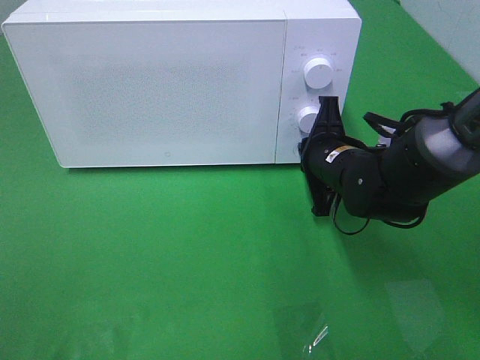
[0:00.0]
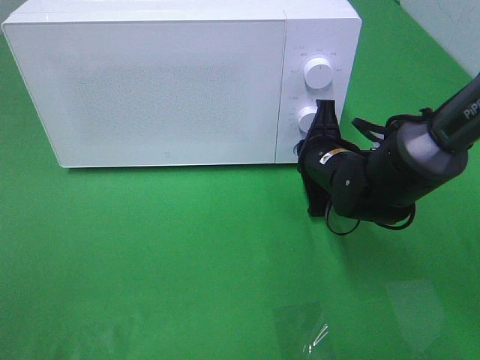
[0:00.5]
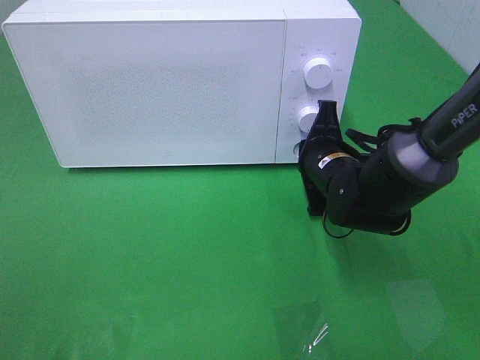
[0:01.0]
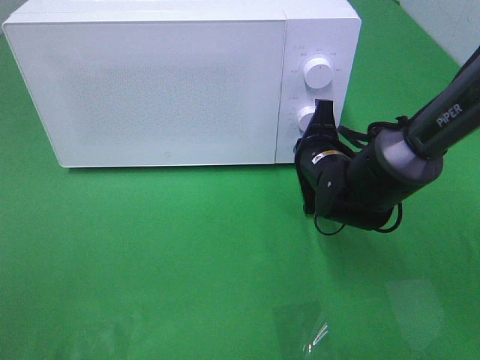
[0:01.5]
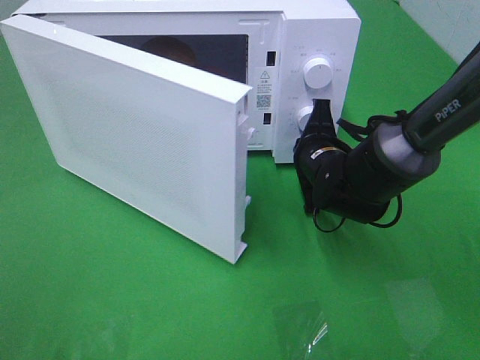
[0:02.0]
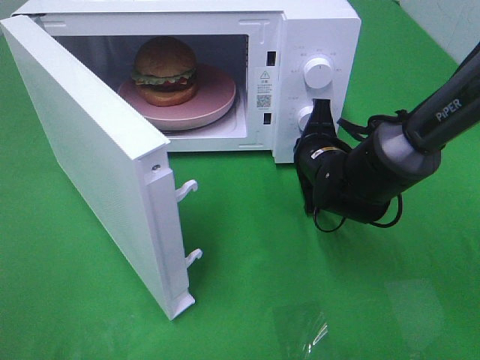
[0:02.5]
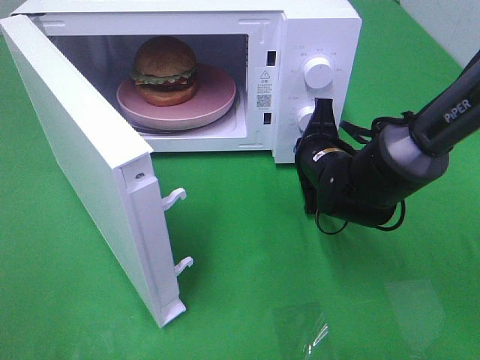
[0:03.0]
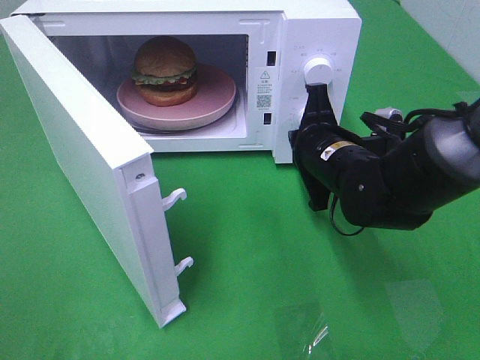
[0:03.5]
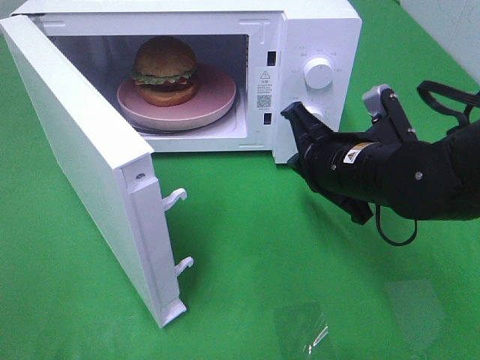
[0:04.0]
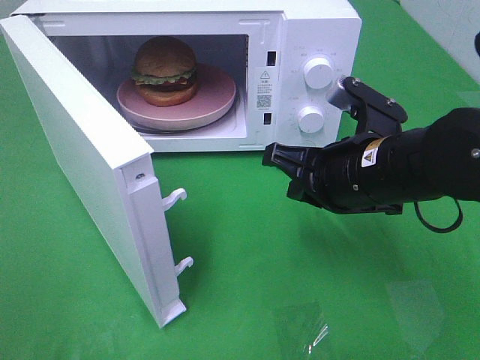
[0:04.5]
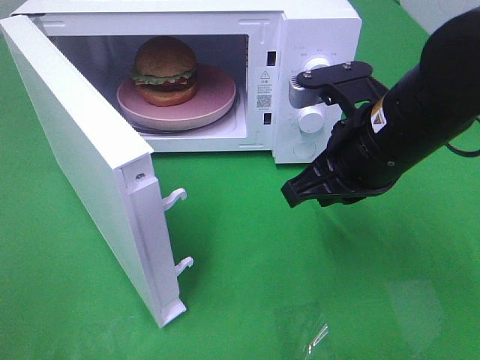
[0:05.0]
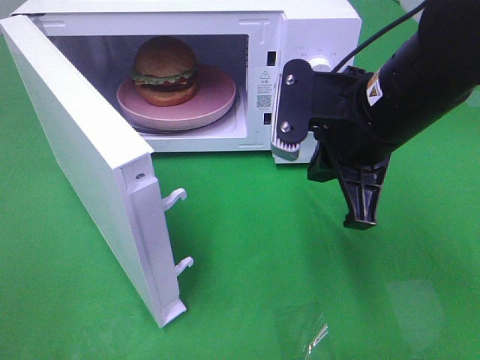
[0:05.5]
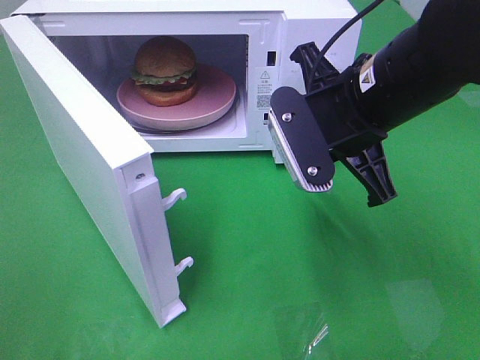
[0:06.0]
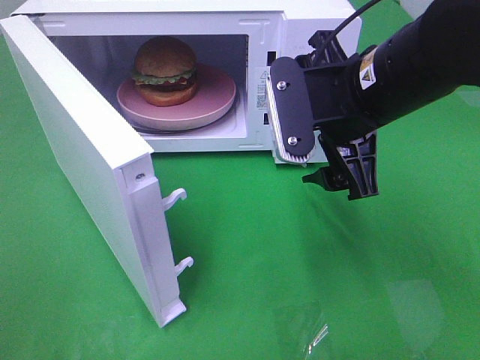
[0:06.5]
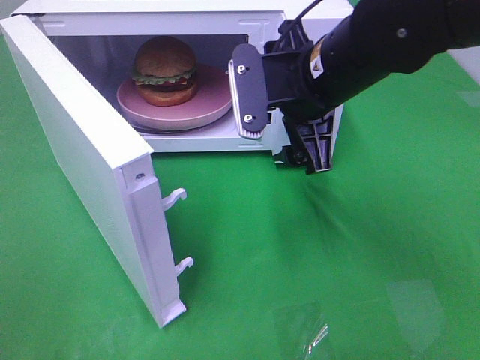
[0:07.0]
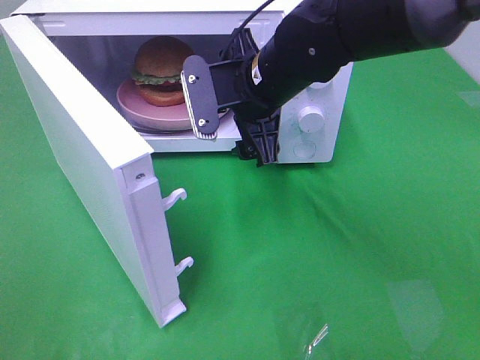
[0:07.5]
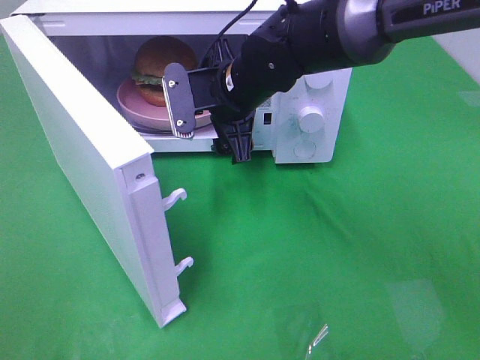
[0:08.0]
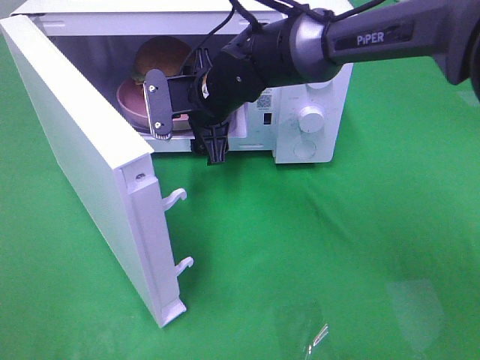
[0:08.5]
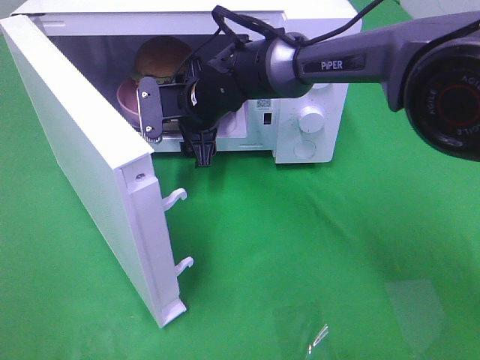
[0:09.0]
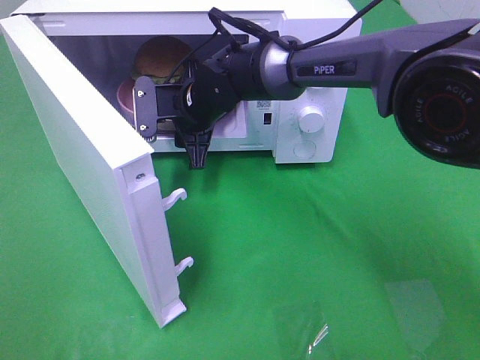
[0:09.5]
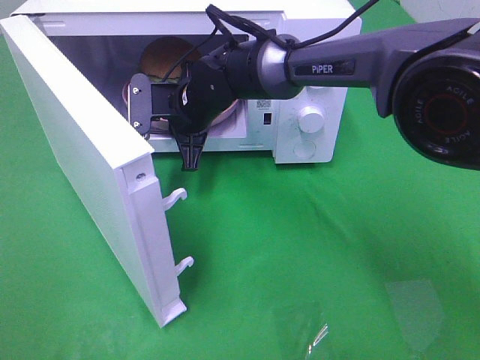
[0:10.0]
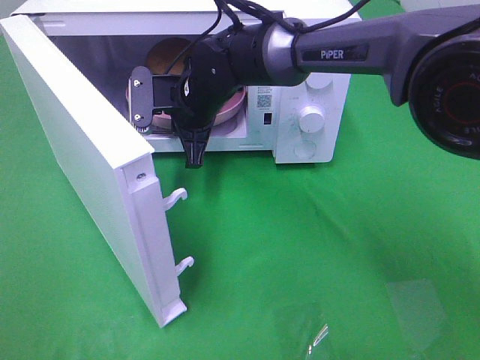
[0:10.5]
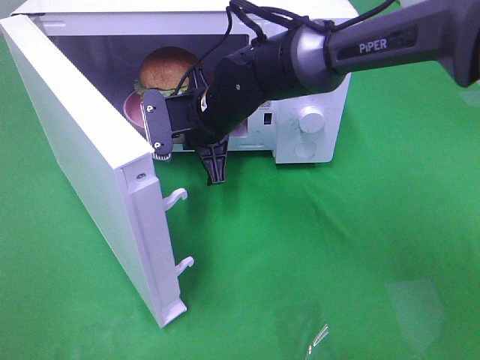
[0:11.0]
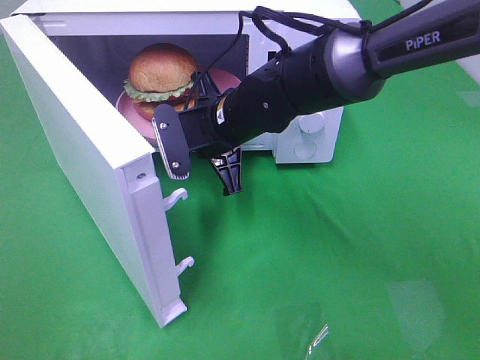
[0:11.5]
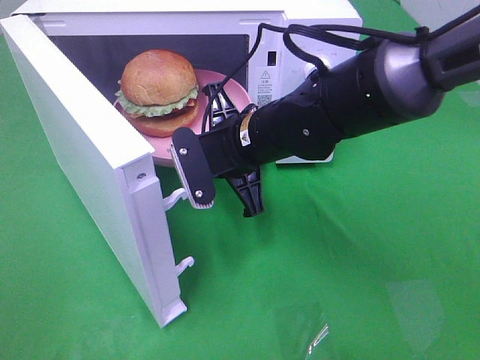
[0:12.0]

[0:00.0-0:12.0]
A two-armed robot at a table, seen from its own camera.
Task of the whole recording: Heat the burger.
Step, 0.0 to 3.0 s: Right hand: press the switch.
Step, 3.5 to 9.5 s: Right hand: grab the plate with the hamburger.
2.0 to 4.0 s: The right gripper goes approximately 10 cm backward and upward.
4.0 to 6.0 s: The right gripper is displaced upward by about 10 cm.
6.0 to 8.0 s: The right gripper goes approximately 15 cm forward, to the left and downward, and opens up.
8.0 to 10.0 s: The right gripper travels to the left and downward by approximately 5 cm, and closes up.
10.0 to 12.0 s: The right gripper goes approximately 15 cm backward and to the right.

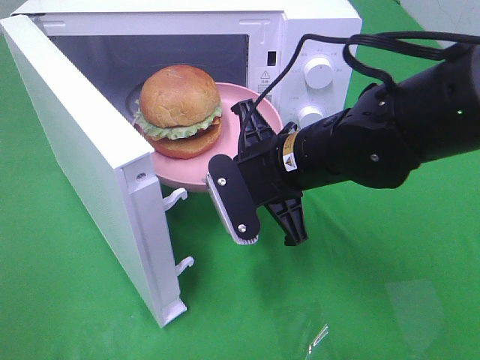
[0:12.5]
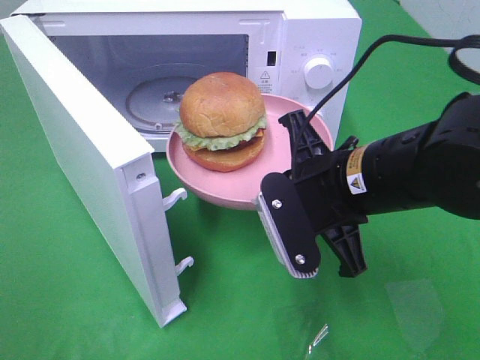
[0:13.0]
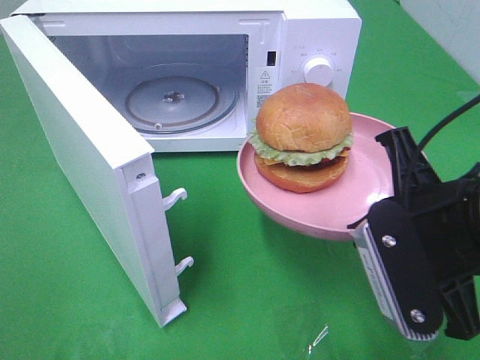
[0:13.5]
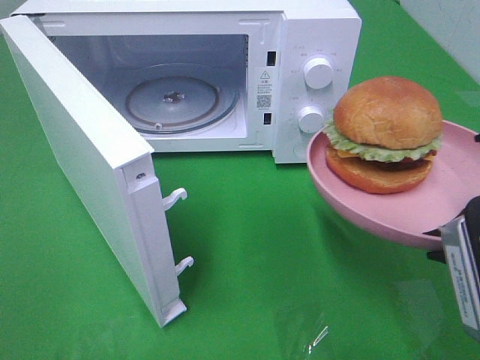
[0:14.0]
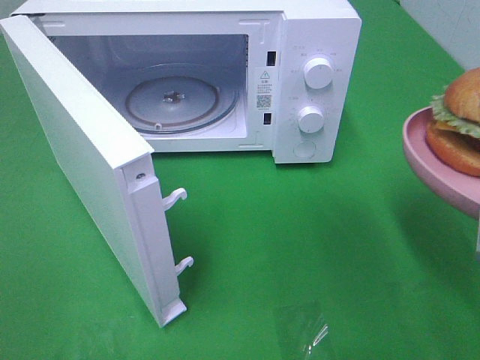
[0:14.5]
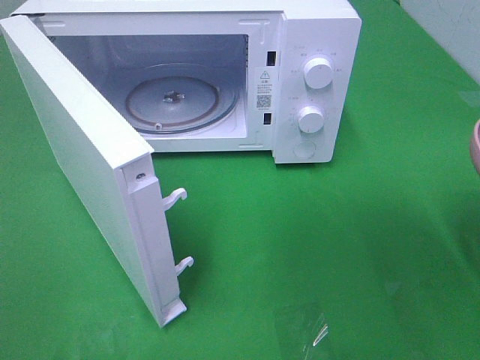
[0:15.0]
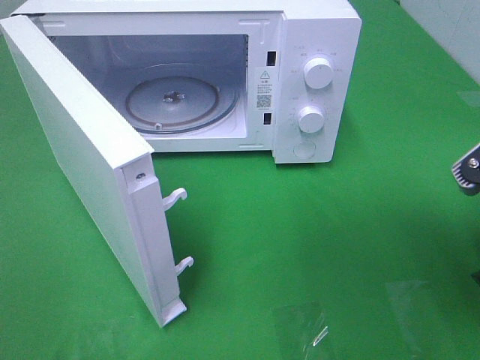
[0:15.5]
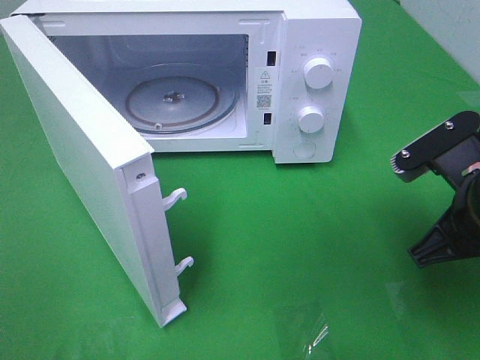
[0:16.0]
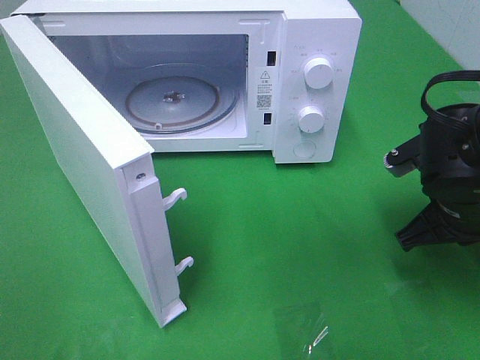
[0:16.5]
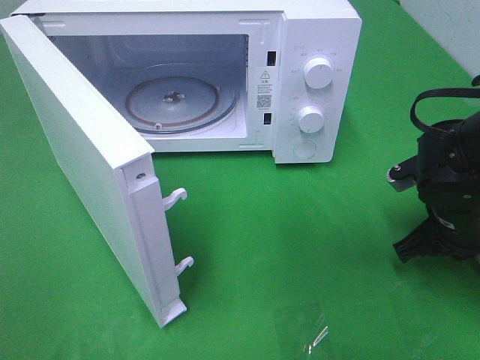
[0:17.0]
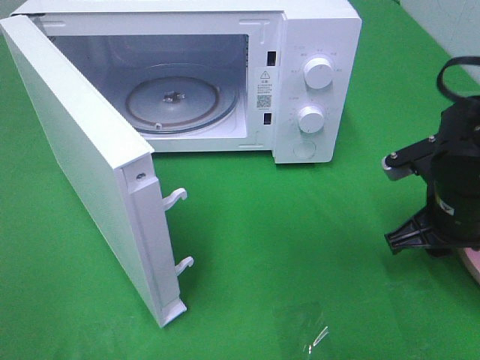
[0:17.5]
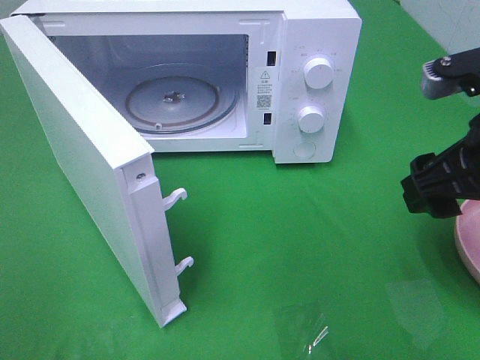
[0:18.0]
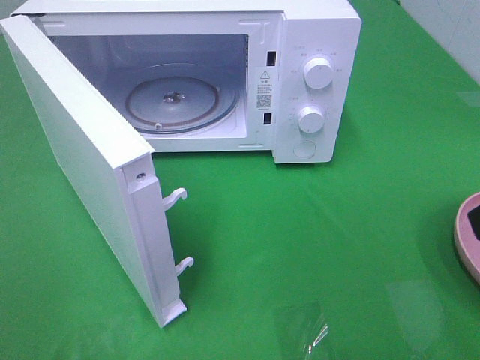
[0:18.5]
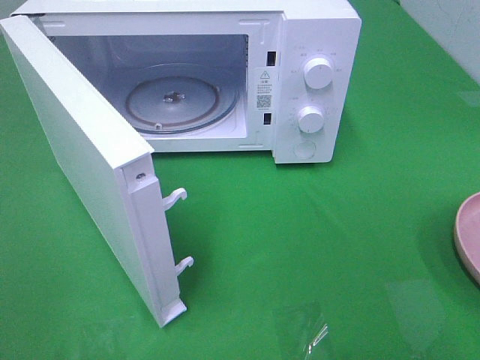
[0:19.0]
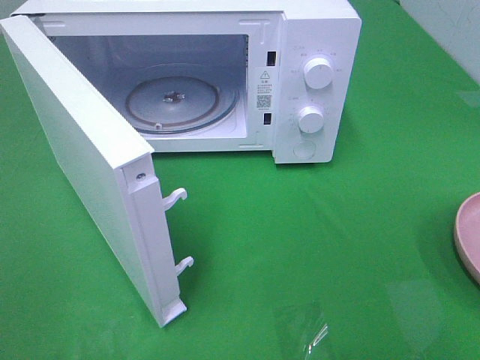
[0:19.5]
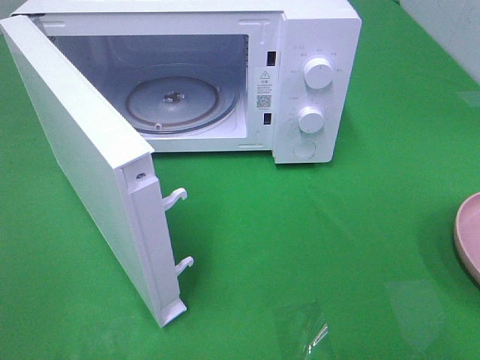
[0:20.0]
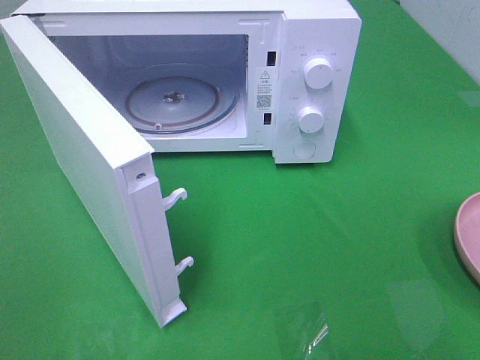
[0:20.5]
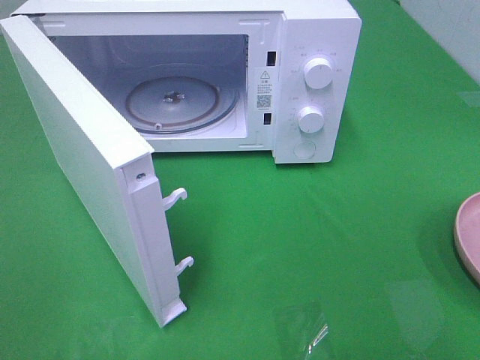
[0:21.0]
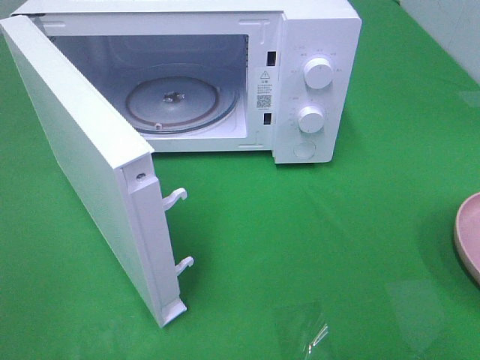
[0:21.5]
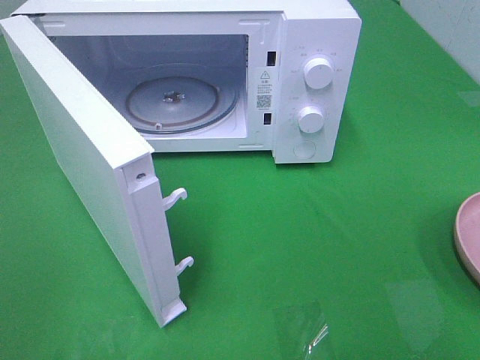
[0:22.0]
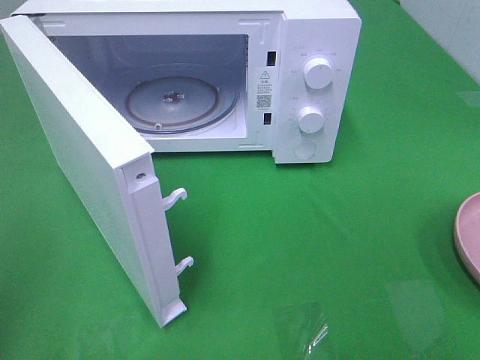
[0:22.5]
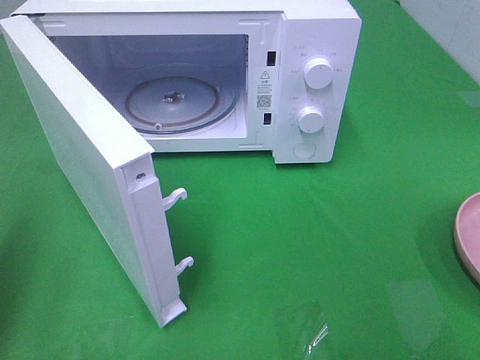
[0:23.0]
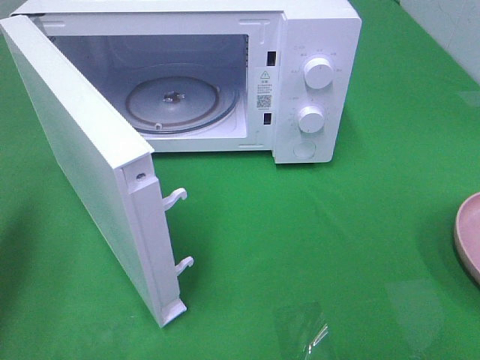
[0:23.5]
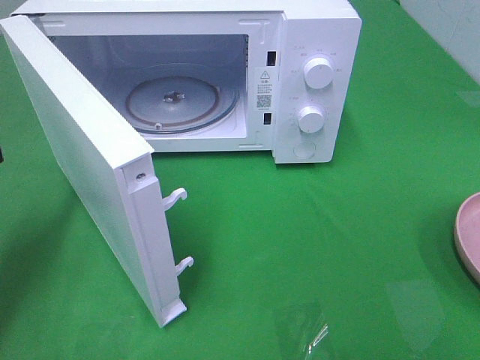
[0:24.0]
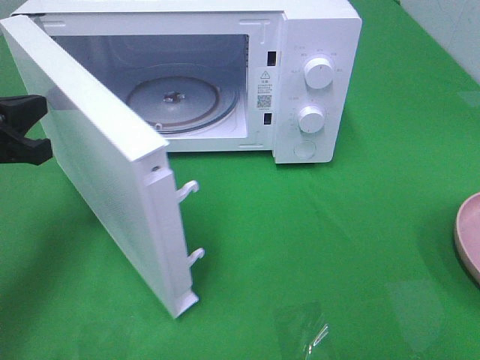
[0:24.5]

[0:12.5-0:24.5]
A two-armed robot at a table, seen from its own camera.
Task of the whole recording: Heat the burger.
Step, 12.5 to 17.0 s: Right hand: place the plate on the table.
12.5 to 14.5 s: The right gripper heads to the right, backward and upward, covering some 25 cm.
14.5 to 16.5 s: The right gripper moves forward and downward, some 15 cm.
16.5 to 18.5 s: The right gripper moves upward and backward, about 20 cm, and opens up.
22.5 to 24.5 s: The left gripper shifts approximately 25 cm forward and downward.

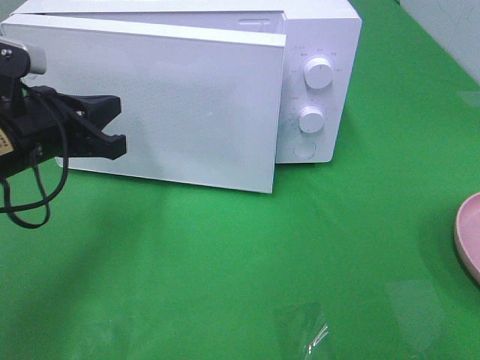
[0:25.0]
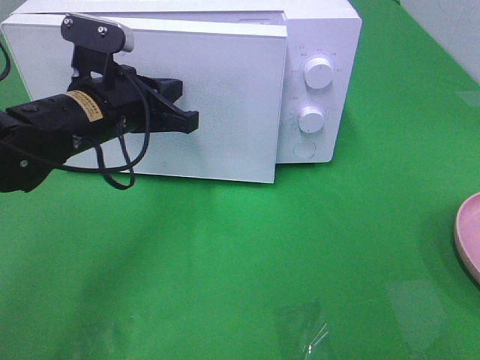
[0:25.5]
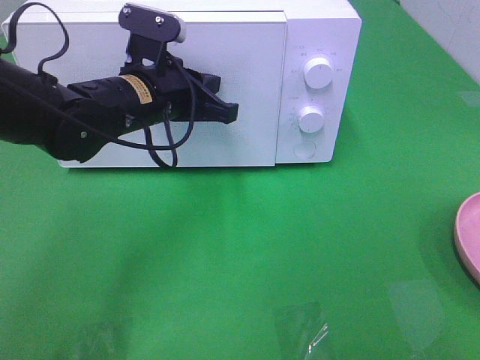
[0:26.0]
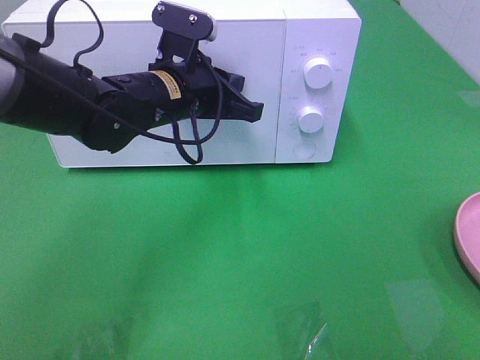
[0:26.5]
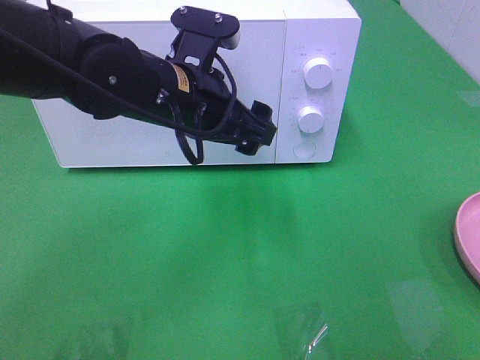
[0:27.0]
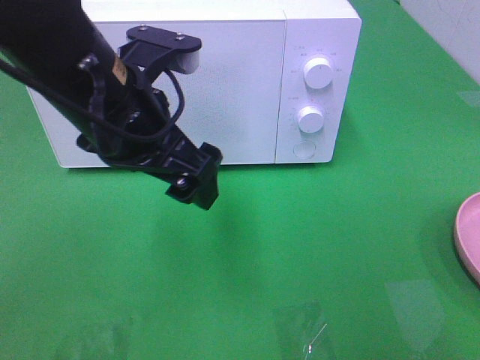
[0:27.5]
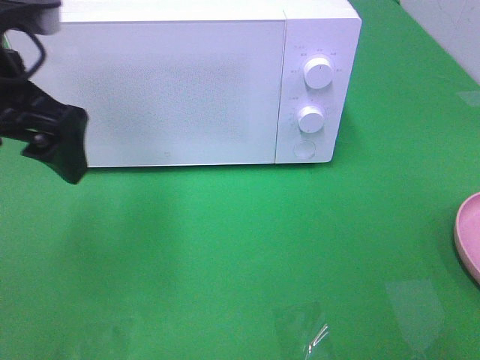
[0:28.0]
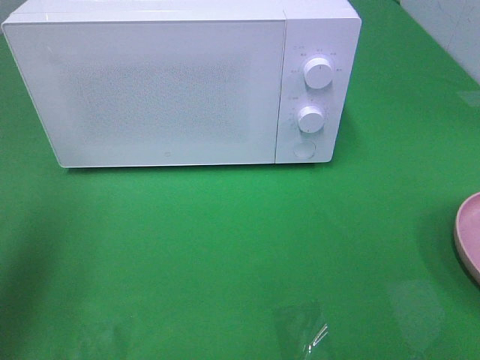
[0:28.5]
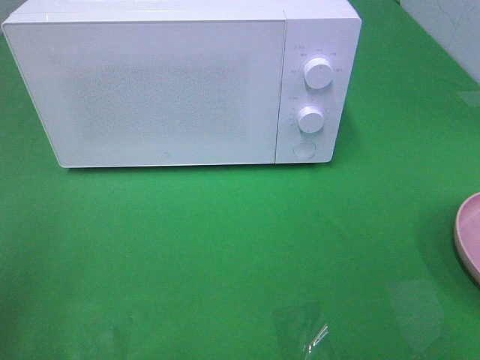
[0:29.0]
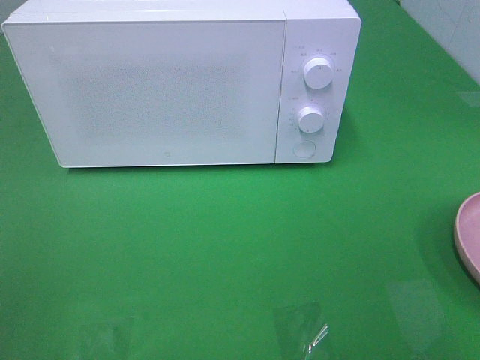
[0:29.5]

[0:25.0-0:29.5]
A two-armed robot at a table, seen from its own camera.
Task of the whole recording: Heat the burger.
25.0 to 27.0 s: The left gripper shifts approximately 15 cm to the right, and opens up.
27.0 to 29.5 s: The left gripper travels backward and to the left by roughly 40 cm.
